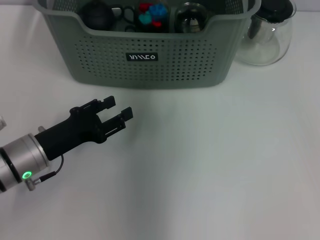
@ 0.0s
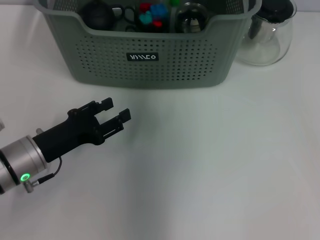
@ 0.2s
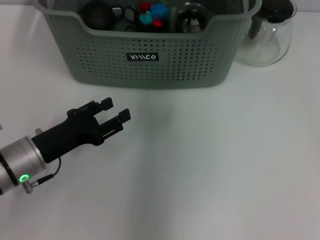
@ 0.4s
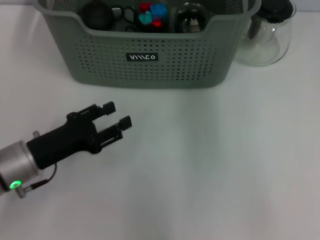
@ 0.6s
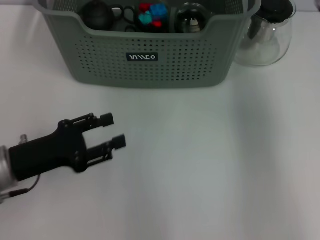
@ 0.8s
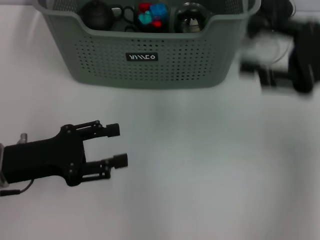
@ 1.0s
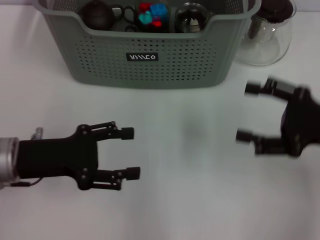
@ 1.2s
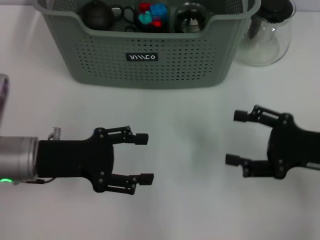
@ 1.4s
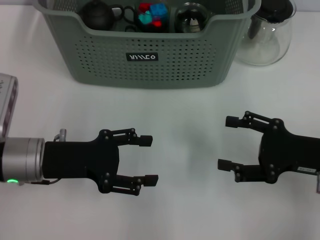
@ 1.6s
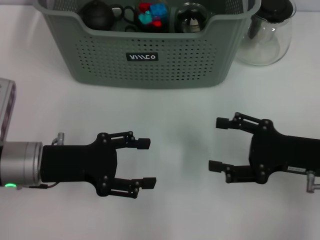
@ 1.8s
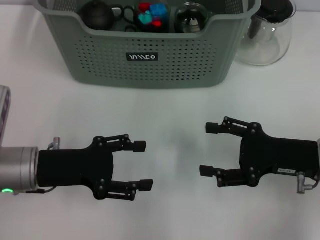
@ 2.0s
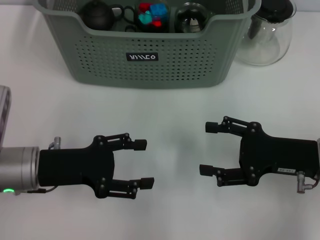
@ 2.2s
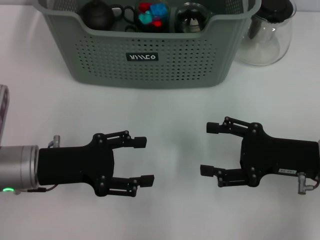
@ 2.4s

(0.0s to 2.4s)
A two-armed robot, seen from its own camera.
Task of the whole recording: pick up the teacup on the table and place it into the storage bin, pick up the block on the table and place it into the storage bin.
0.0s - 1.2s: The right gripper is displaced backward, to the right and downward by about 35 cm, and opens. The left gripper travels upward by about 5 cm.
1.2s - 2.4s: The right gripper goes approximately 5 cm downward.
